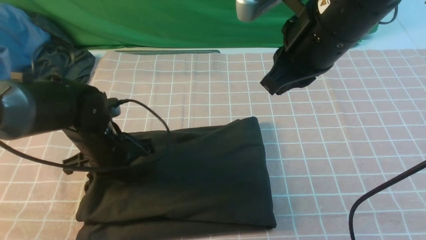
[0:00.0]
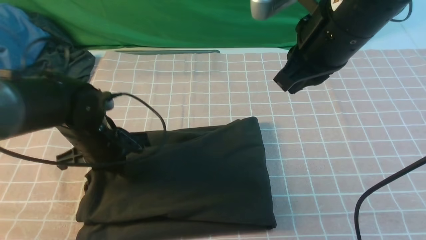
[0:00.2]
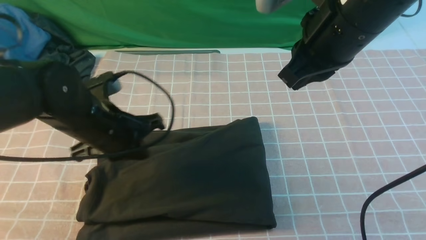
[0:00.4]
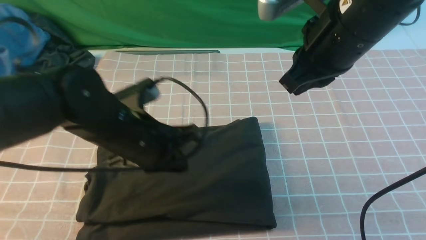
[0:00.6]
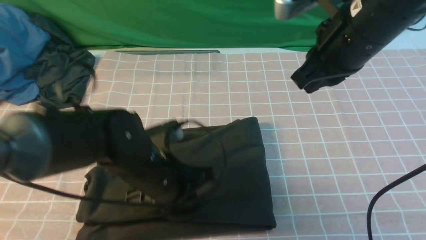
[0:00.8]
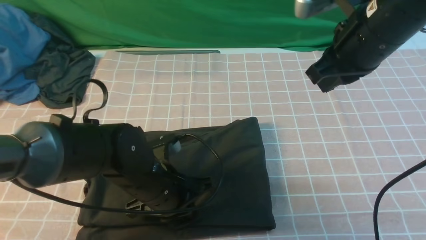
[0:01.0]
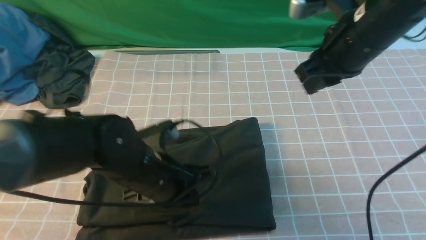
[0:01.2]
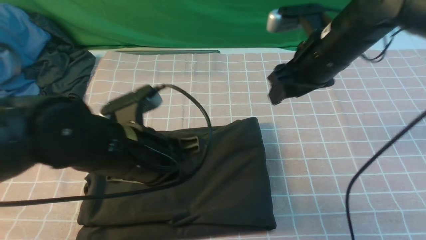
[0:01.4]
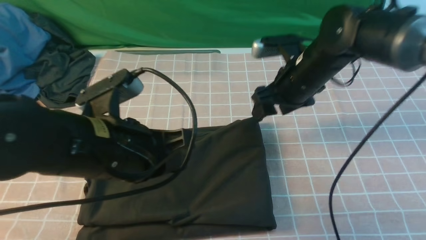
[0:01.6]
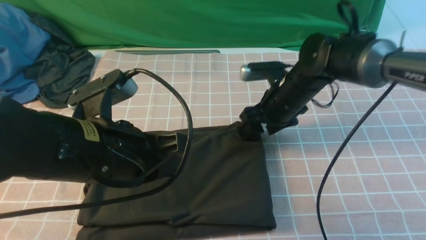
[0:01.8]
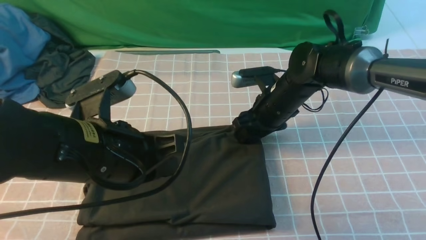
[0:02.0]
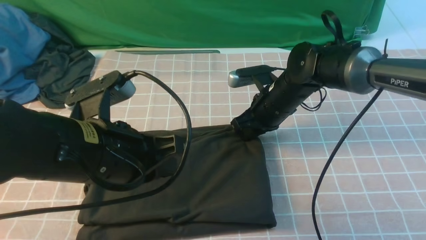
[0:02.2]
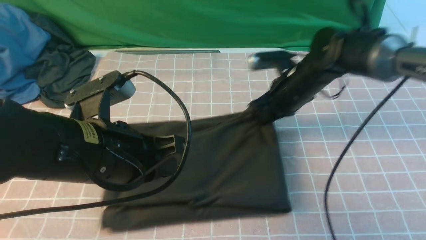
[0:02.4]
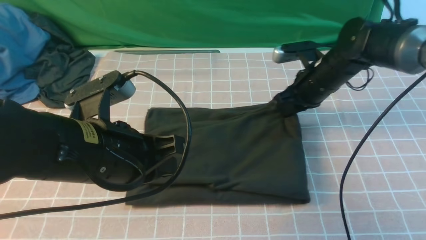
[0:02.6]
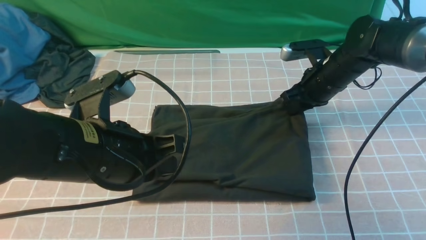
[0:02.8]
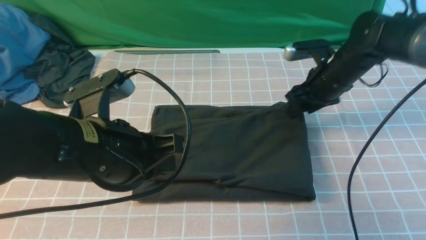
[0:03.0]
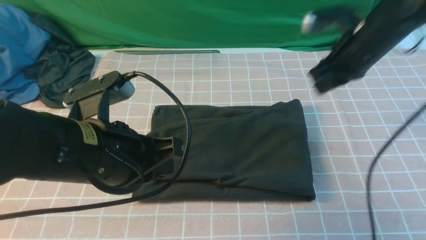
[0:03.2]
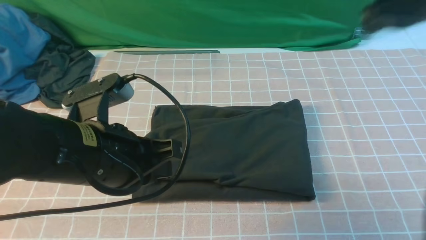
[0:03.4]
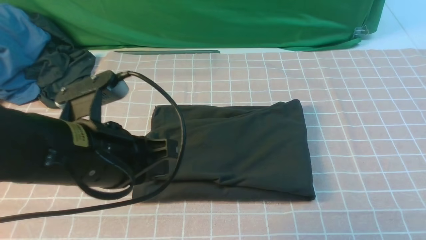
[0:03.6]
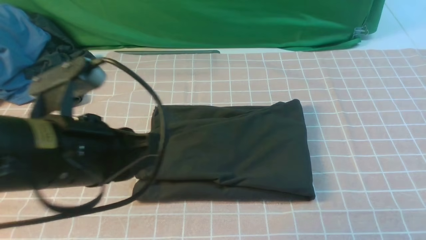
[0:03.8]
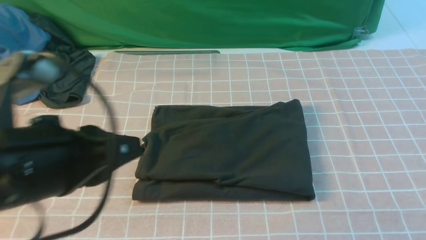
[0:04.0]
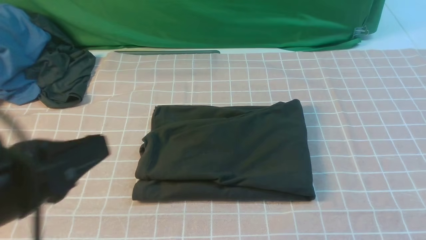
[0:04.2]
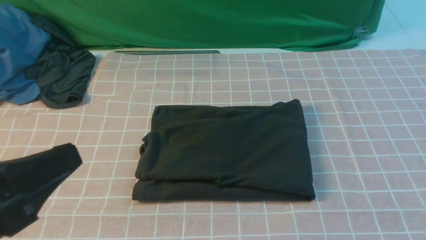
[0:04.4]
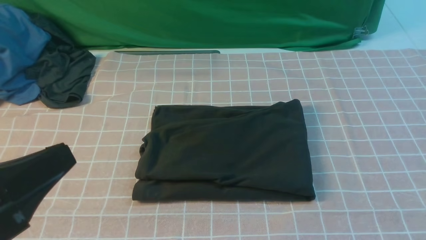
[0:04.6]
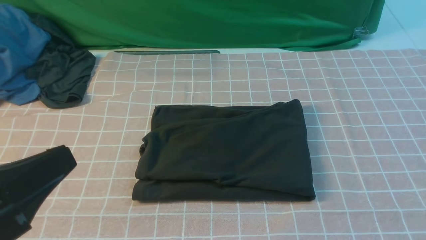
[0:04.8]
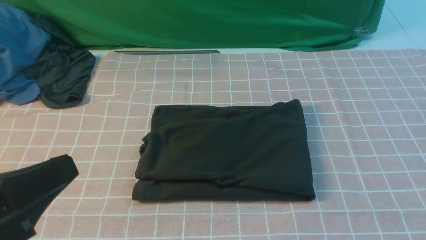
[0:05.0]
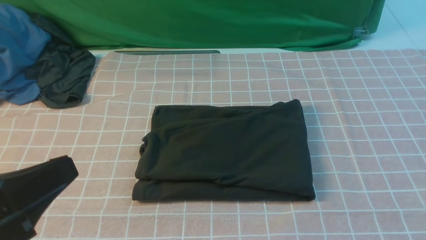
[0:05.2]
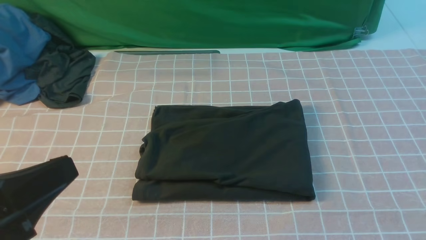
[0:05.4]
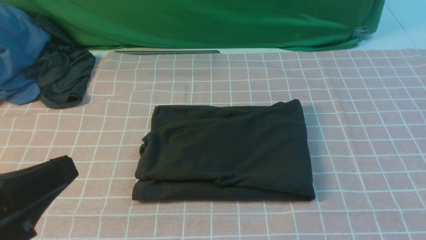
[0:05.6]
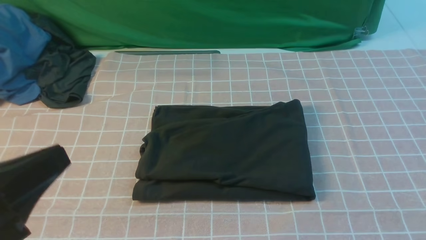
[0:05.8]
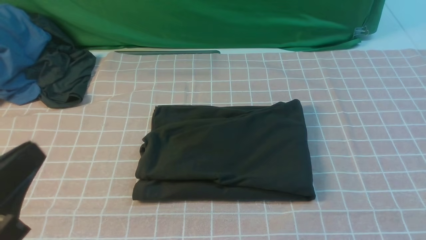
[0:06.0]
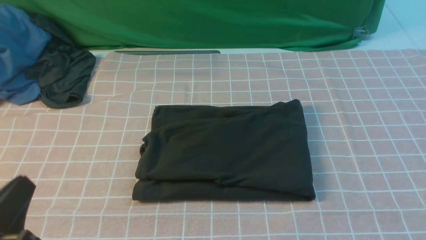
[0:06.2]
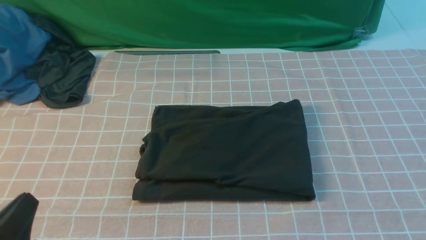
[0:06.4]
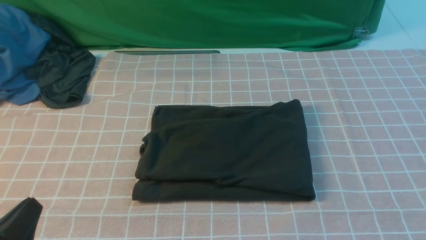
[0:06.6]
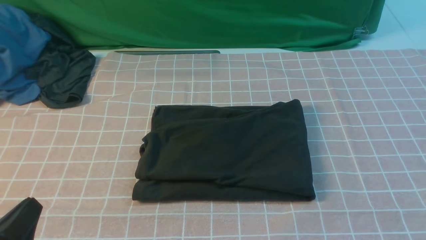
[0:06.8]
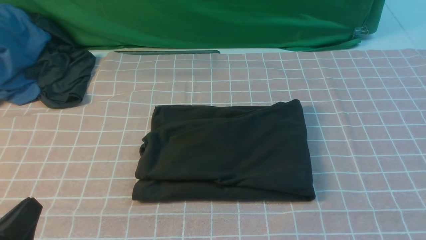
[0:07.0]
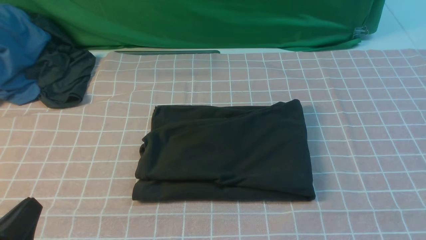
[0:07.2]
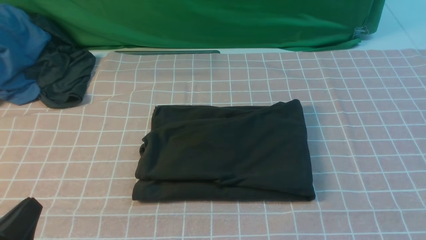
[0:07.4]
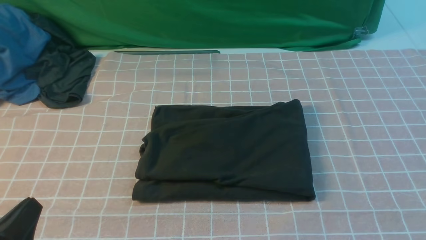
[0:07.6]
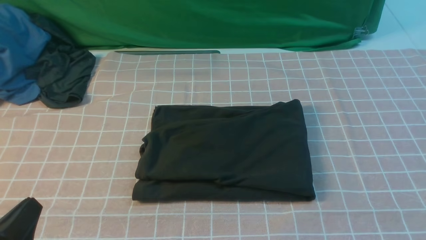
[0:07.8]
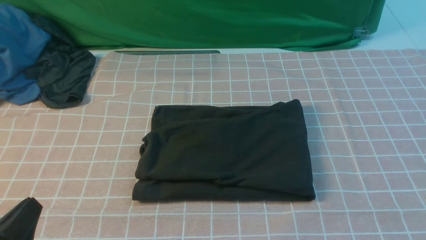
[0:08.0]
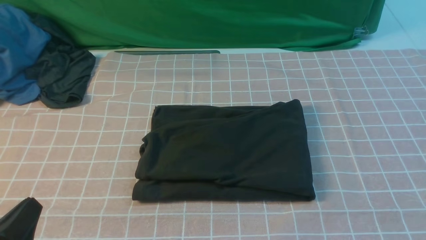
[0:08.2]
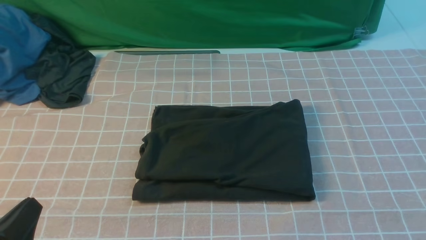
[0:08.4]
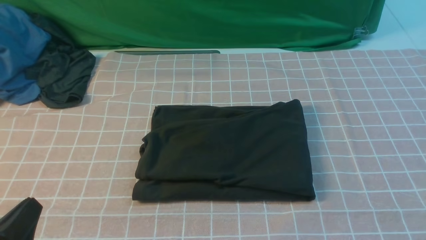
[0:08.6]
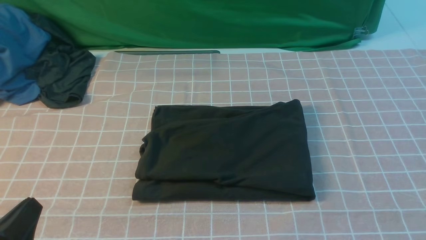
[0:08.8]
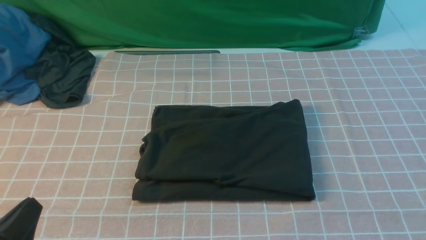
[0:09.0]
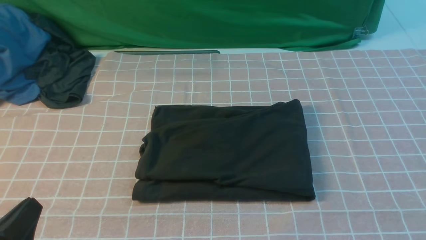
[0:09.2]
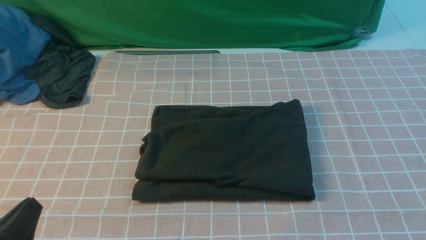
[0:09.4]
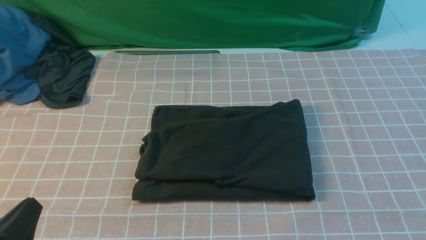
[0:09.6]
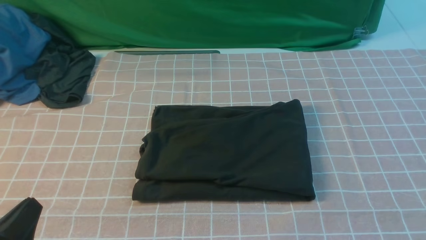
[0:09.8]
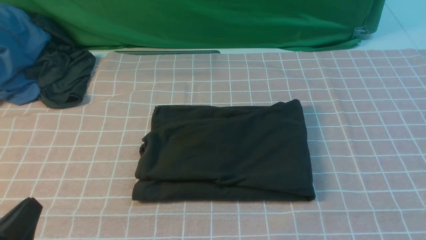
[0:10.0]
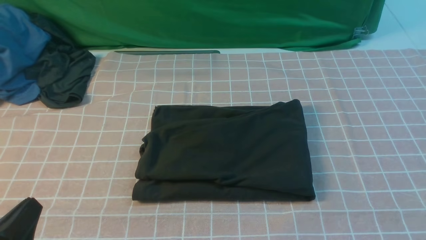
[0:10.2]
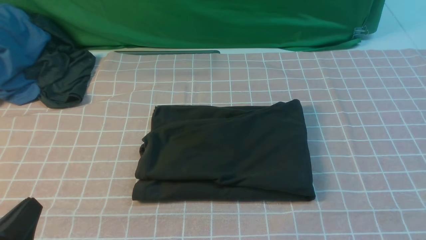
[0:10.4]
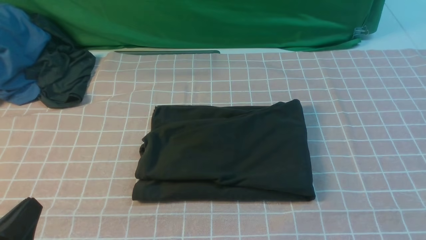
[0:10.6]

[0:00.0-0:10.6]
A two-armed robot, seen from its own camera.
0:00.0 to 0:01.6: The left gripper swings up and down, about 10 cm each way, with 2 reversals. Meanwhile the right gripper moves downward and forward, about 20 cm, and opens up.
0:01.6 to 0:03.0: The right gripper travels to the right by some 10 cm, and closes.
0:03.0 to 0:04.6: The left gripper goes some 15 cm backward and to the left. The right gripper travels backward by some 40 cm.
0:04.6 to 0:06.0: The left gripper travels downward by some 5 cm.
0:06.0 to 0:07.6: The left gripper is displaced downward by approximately 10 cm.
0:09.0 to 0:10.6: Both grippers stay about where they are.
